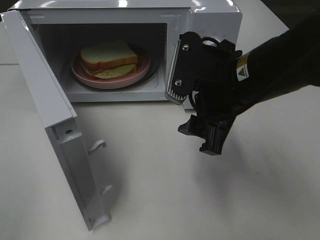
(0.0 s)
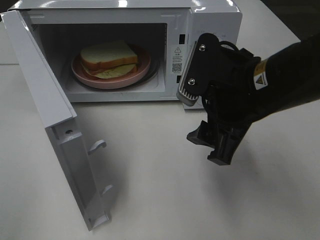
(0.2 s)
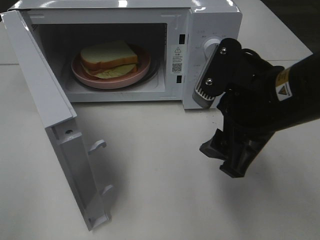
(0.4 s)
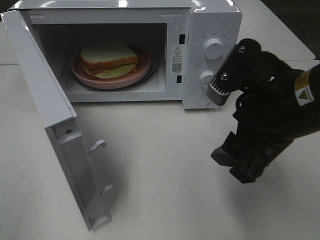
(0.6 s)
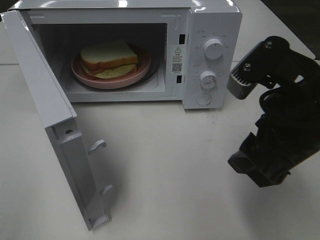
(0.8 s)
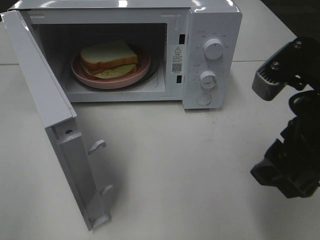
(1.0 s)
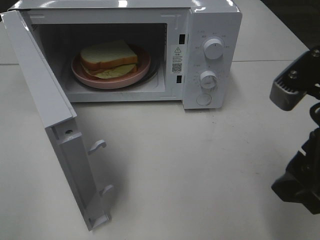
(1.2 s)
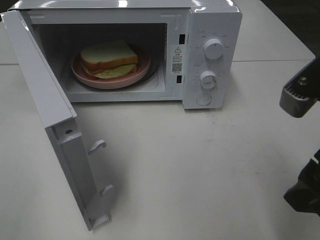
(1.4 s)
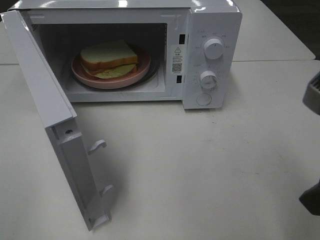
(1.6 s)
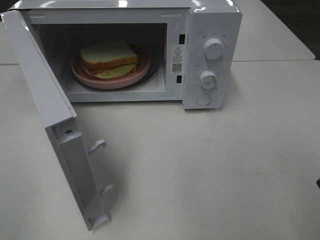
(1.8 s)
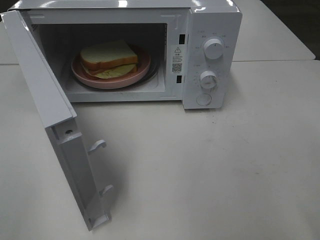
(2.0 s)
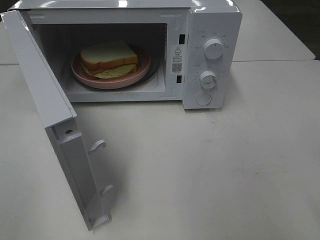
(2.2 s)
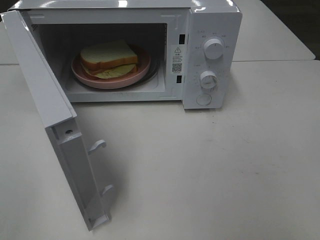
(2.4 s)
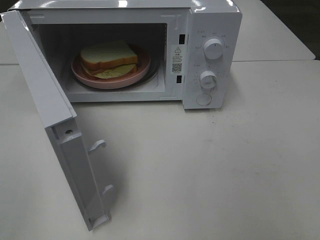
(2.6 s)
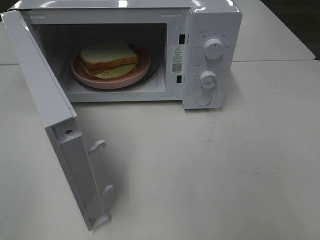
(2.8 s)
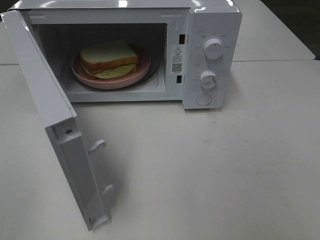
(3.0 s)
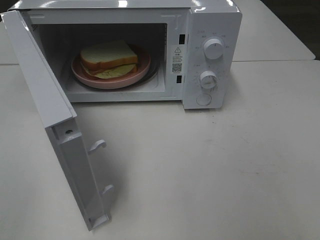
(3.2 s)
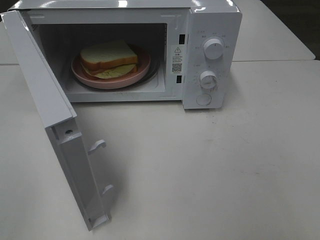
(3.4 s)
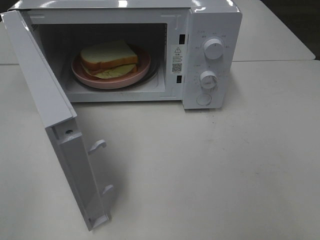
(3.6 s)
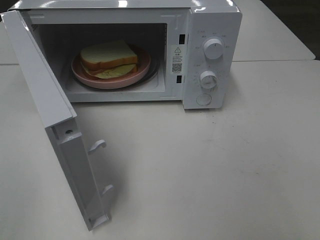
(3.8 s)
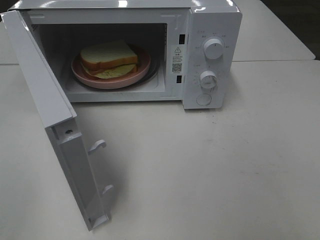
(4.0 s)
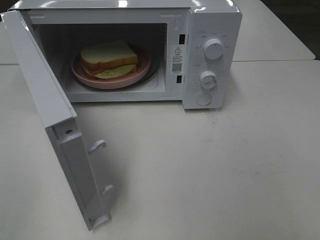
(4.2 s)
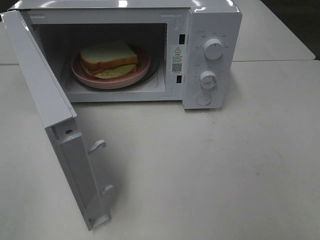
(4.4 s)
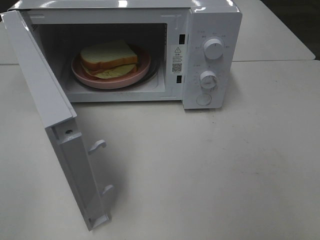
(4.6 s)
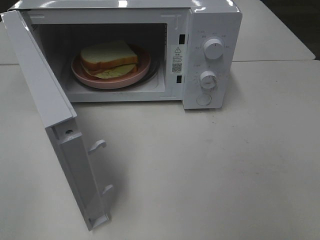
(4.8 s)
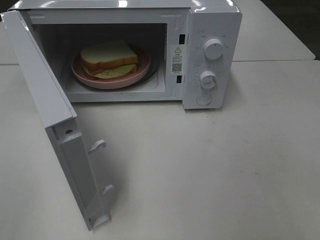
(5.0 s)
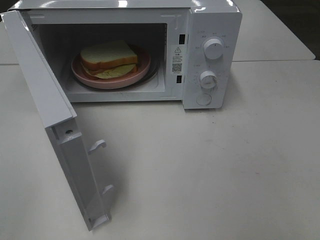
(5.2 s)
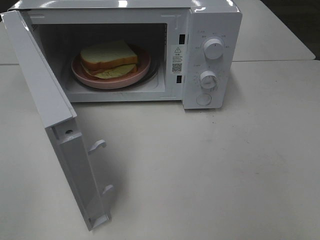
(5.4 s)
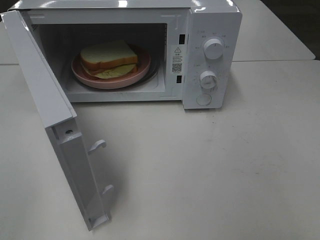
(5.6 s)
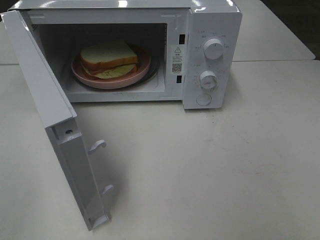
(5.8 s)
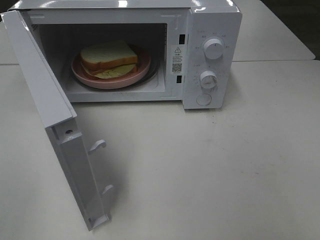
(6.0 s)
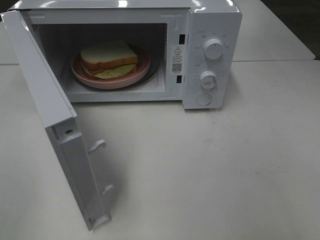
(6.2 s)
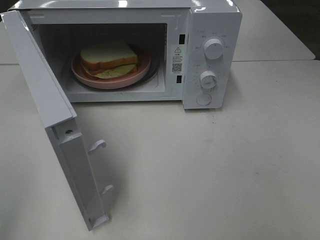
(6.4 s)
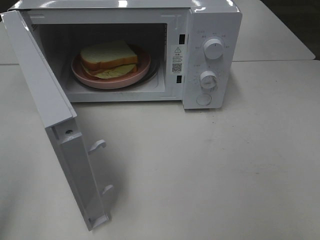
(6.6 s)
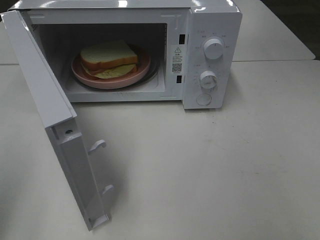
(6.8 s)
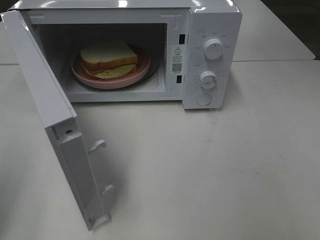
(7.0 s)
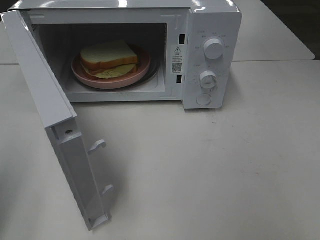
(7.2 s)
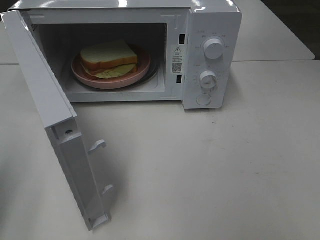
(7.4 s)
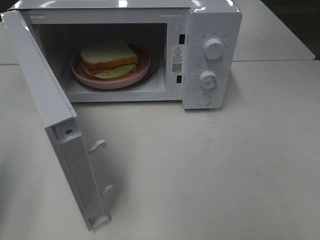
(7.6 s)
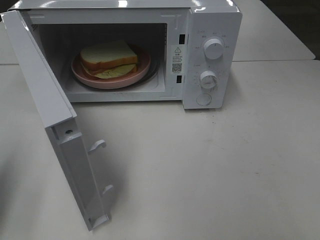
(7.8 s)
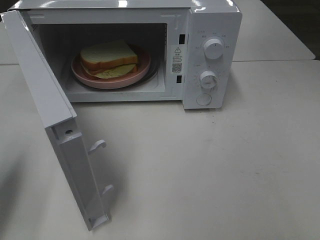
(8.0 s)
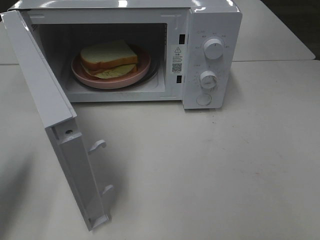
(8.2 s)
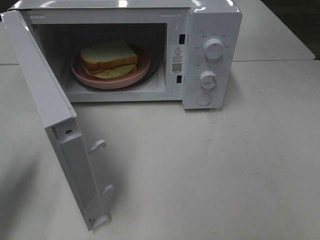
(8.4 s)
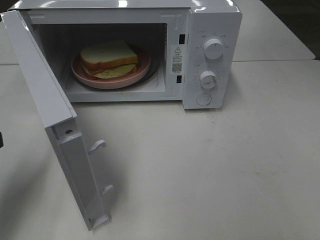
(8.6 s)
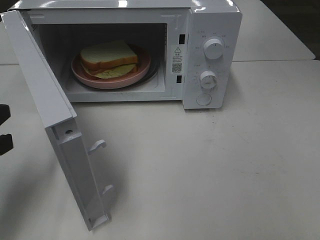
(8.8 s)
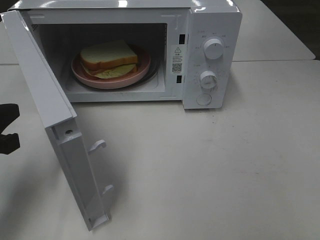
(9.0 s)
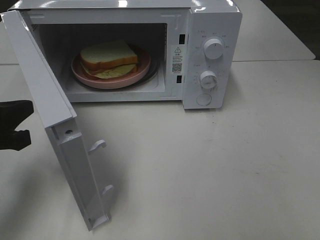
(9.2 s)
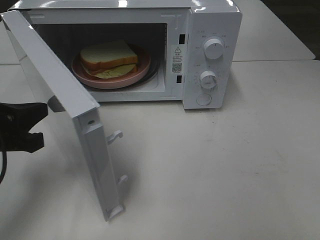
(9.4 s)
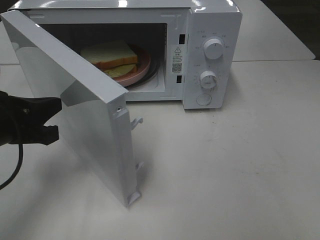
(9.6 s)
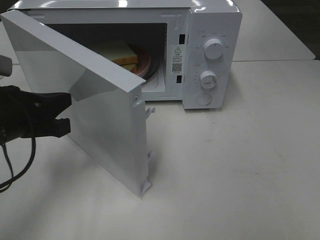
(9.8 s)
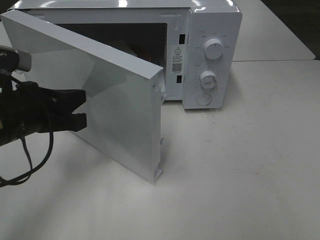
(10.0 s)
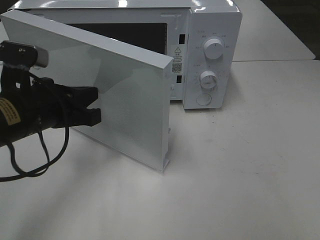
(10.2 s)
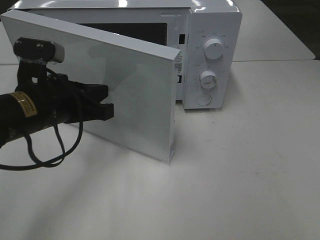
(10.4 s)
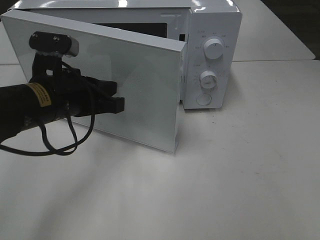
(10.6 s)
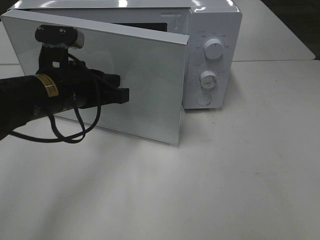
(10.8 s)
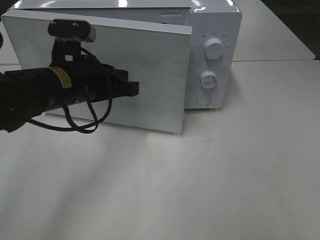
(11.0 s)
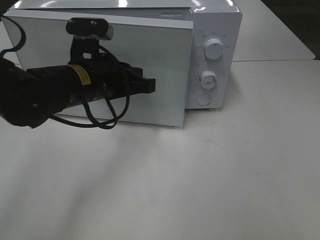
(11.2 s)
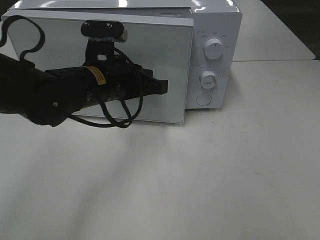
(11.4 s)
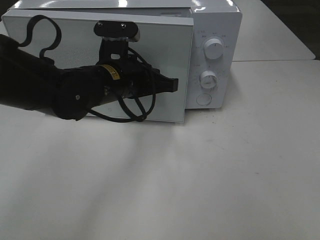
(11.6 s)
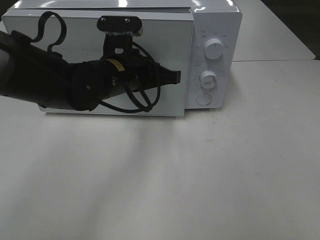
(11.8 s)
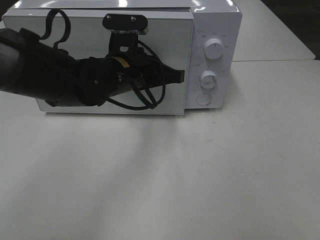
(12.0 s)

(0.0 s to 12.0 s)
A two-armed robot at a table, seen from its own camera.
Task of the whole recording: Heat Sandwich.
0.0 s - 1.6 s: The right gripper moves backward and to the right, some 15 cm.
1.6 s - 3.0 s: The right gripper shifts approximately 15 cm backward and to the right.
4.4 s - 6.0 s: Both grippers stay about where they are.
7.6 s - 9.0 s: The left gripper heads forward and to the right, covering roughly 10 cm.
9.0 s - 10.4 s: The left gripper travels to the right and forward by about 15 cm.
10.4 s - 12.0 s: The left gripper goes approximately 15 cm to the right and forward.

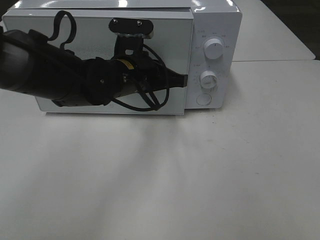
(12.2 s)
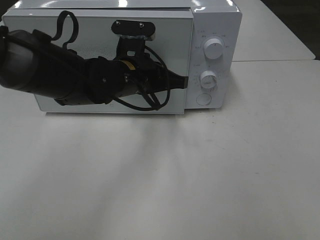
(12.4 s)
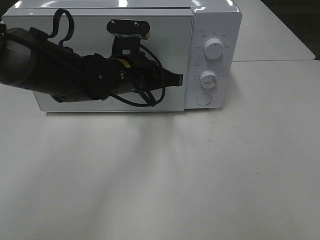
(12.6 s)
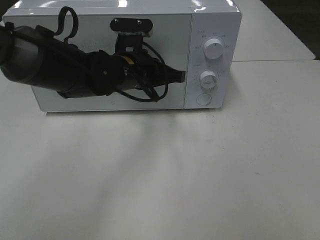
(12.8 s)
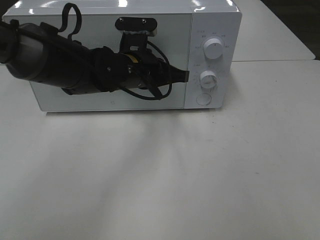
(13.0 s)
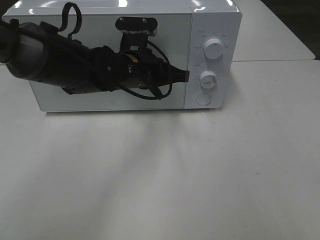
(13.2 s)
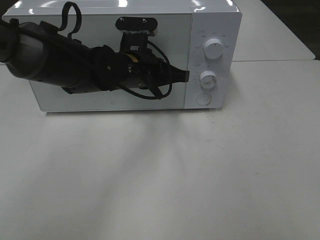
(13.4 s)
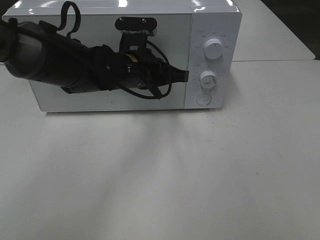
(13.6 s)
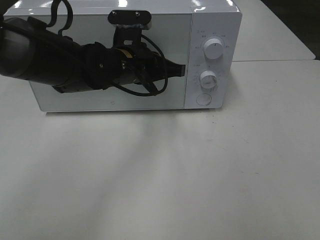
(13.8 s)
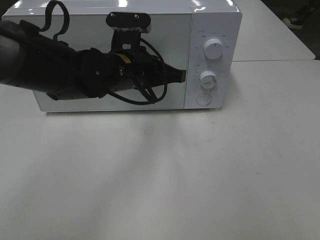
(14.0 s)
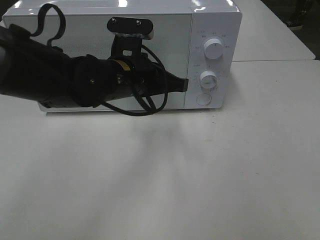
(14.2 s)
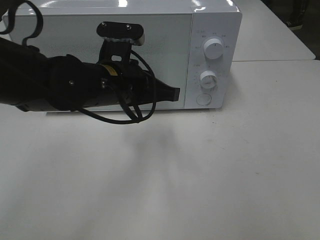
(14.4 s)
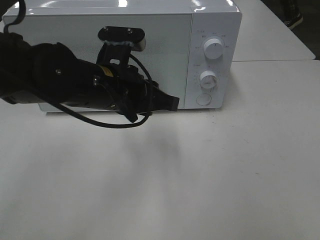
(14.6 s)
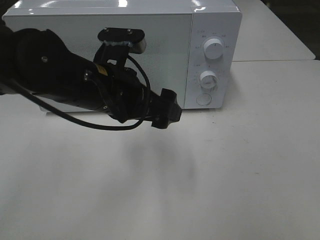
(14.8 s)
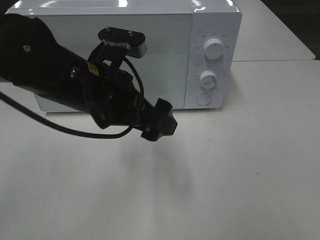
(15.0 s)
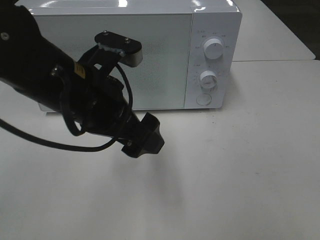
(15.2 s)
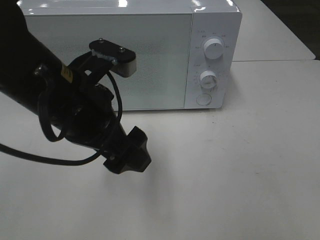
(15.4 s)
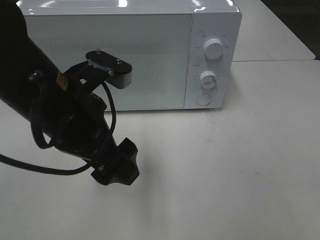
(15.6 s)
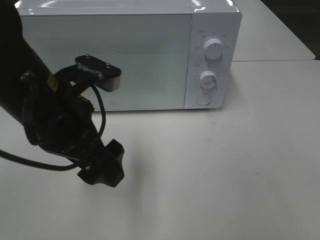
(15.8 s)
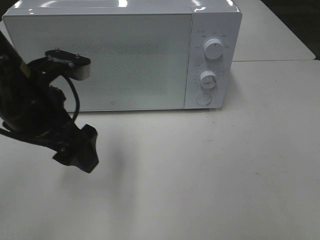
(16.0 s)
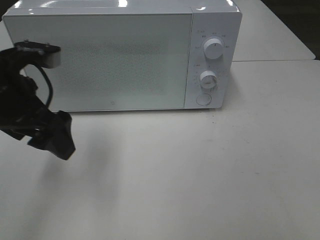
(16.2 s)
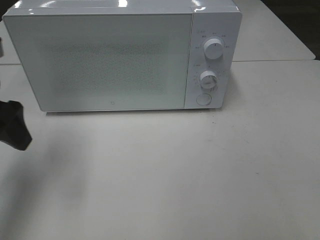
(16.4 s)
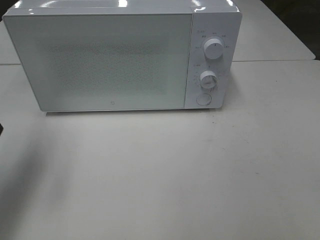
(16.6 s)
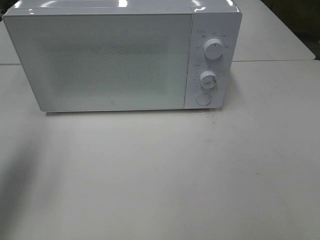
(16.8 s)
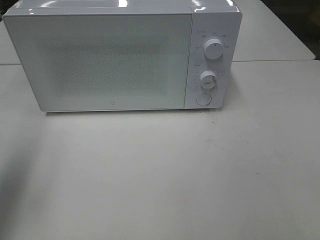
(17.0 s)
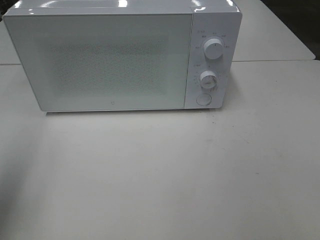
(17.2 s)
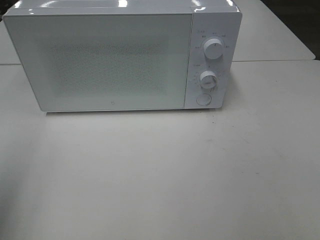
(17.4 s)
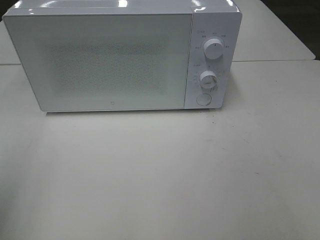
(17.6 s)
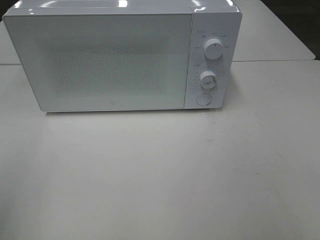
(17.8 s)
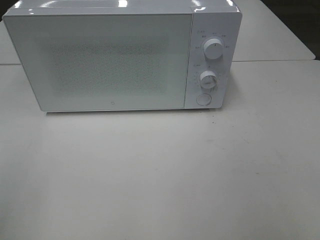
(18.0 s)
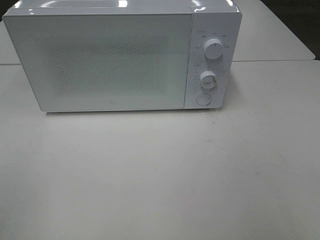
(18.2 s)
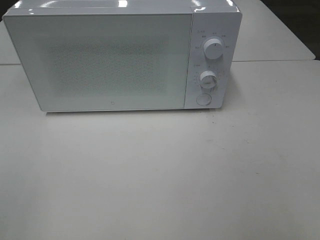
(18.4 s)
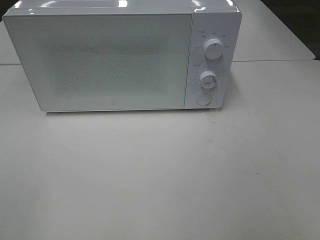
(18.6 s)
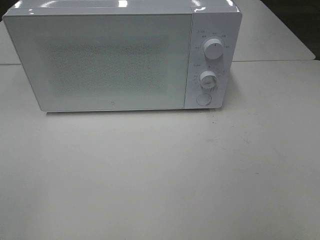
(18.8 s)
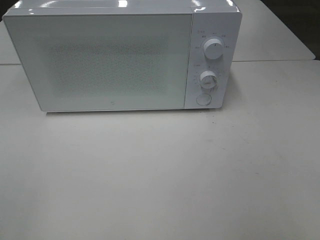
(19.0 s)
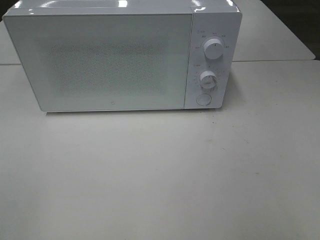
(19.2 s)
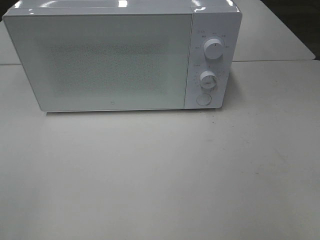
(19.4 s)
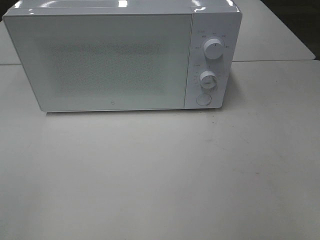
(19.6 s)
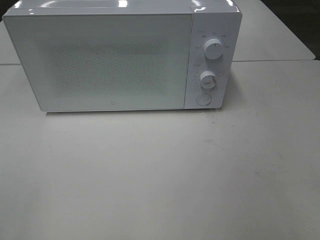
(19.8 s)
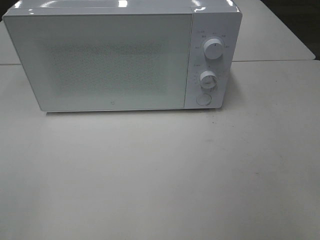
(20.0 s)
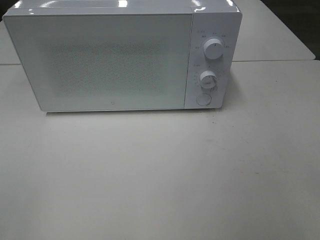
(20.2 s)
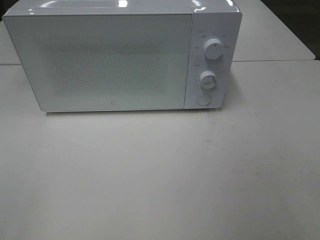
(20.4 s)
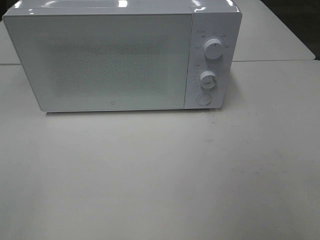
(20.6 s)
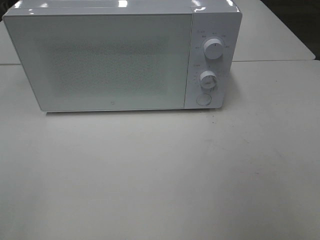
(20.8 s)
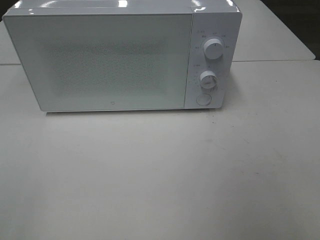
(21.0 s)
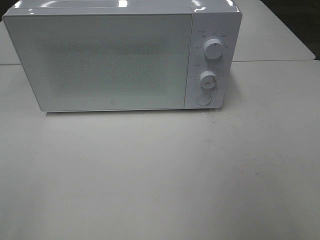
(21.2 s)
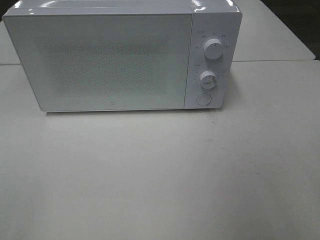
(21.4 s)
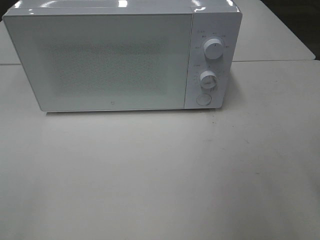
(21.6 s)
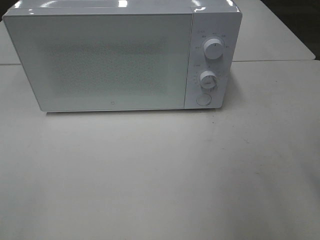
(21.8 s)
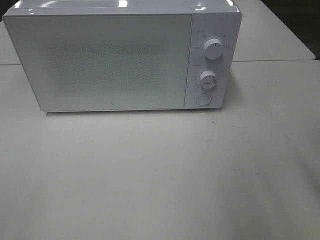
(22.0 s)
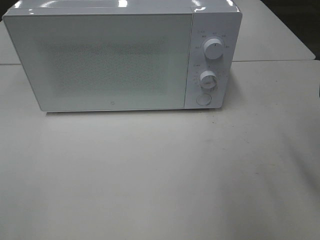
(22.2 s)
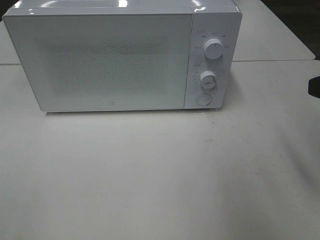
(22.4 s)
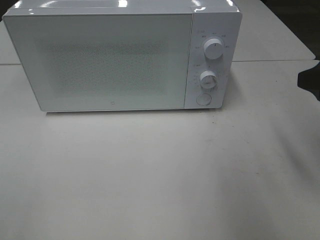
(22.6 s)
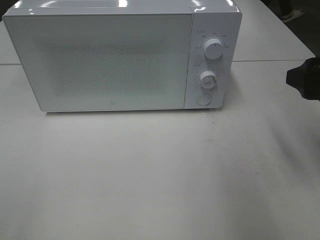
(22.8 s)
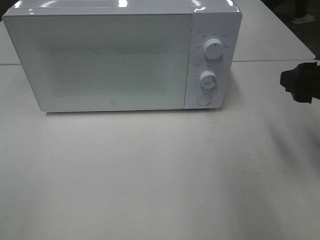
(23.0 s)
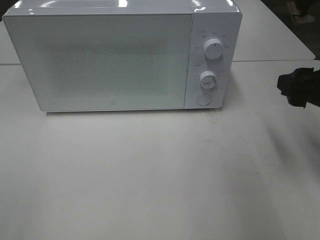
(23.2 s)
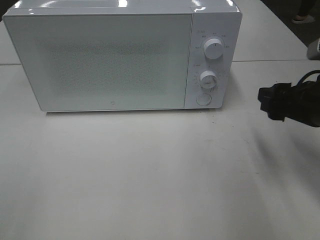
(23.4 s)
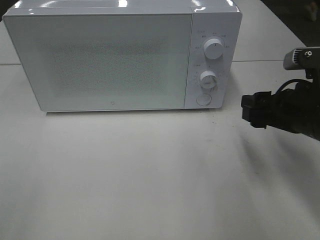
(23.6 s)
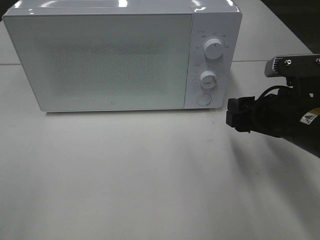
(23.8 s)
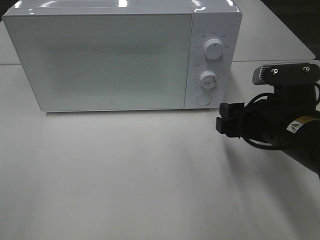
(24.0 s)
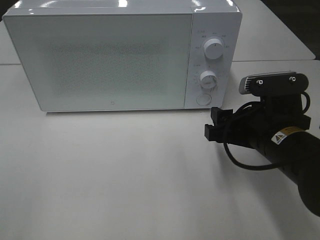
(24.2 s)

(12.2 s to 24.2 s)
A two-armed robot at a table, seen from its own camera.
Task of the whole recording: Heat Sandwich.
Step, 12.2 s - 14.2 s: Left hand: close the microwave door.
12.2 s - 13.8 s: There are only small adjustments of the grippers.
13.8 s - 15.2 s: The left gripper heads backward and upward, covering about 15 cm, and opens.
15.2 s - 16.6 s: The left gripper goes some 20 cm to the left.
16.6 s - 18.2 s: The left gripper moves backward, approximately 20 cm.
21.2 s - 22.6 s: The right gripper shifts about 15 cm forward.
22.6 s - 24.2 s: The right gripper shifts about 15 cm downward and to the left.
